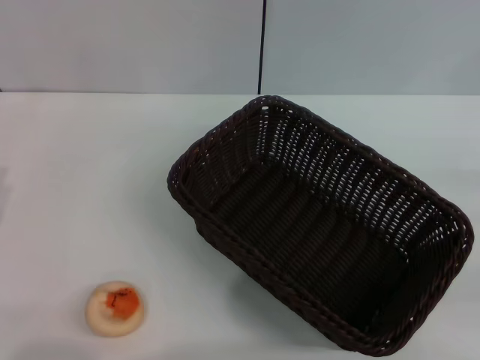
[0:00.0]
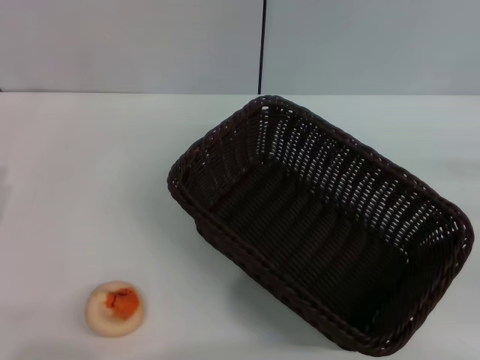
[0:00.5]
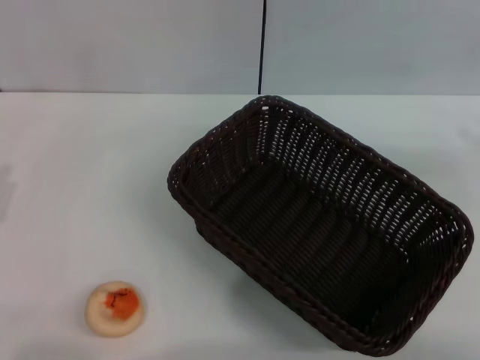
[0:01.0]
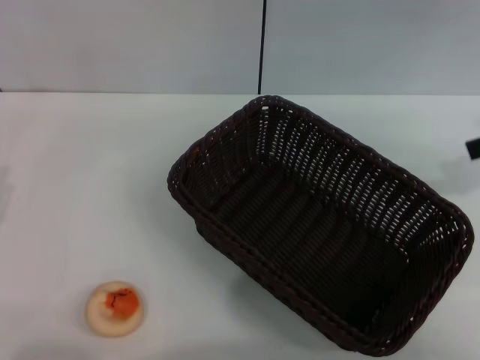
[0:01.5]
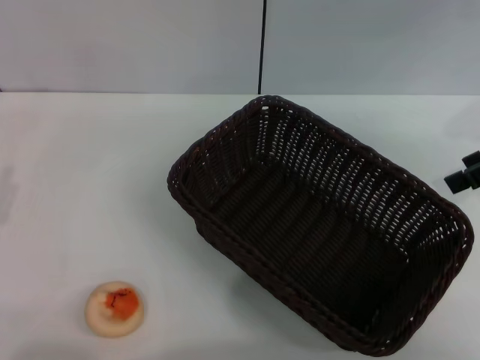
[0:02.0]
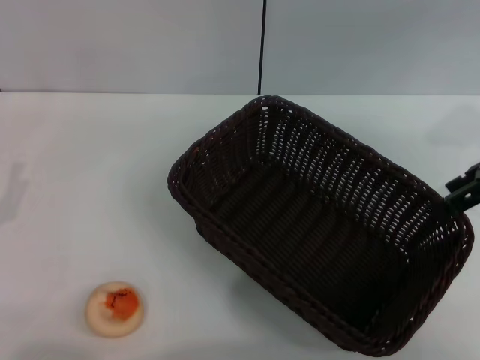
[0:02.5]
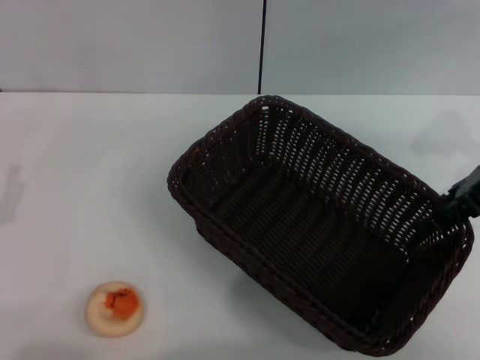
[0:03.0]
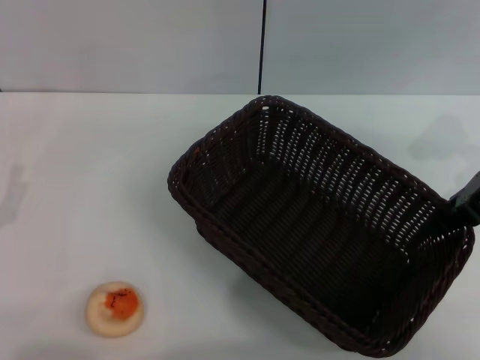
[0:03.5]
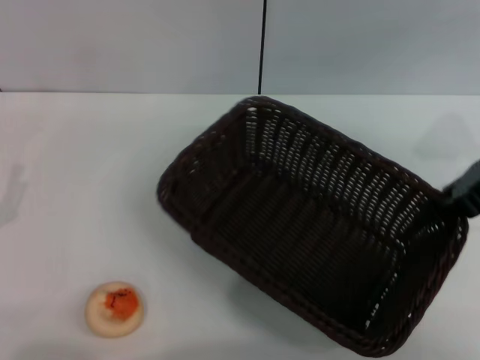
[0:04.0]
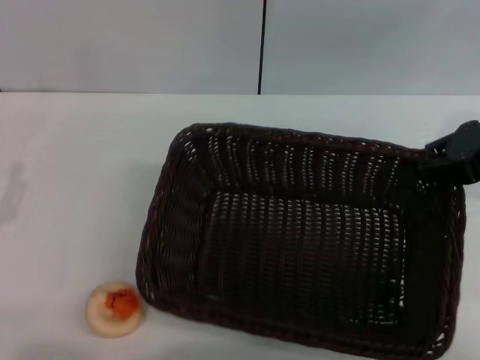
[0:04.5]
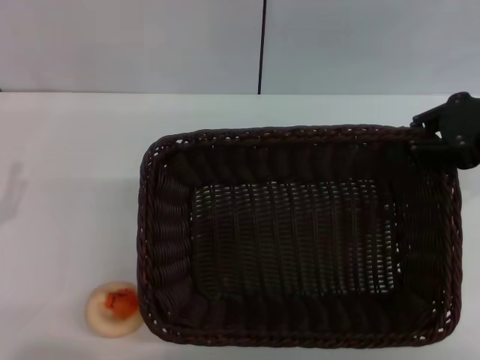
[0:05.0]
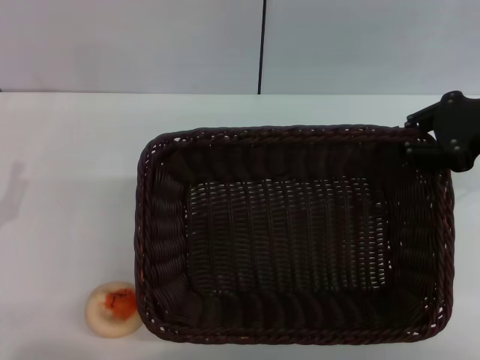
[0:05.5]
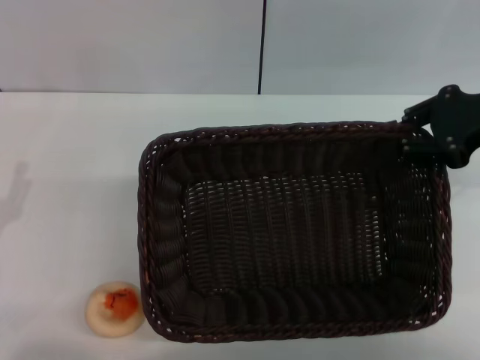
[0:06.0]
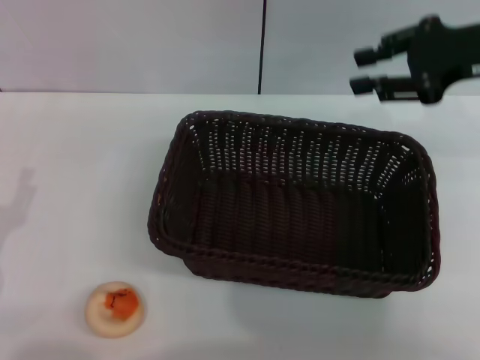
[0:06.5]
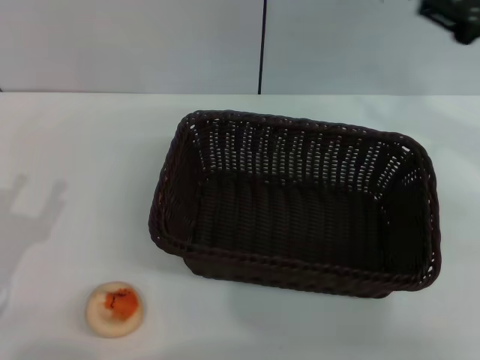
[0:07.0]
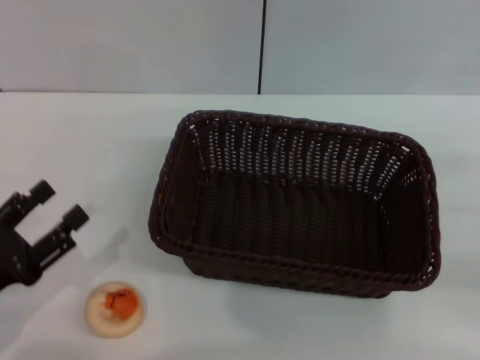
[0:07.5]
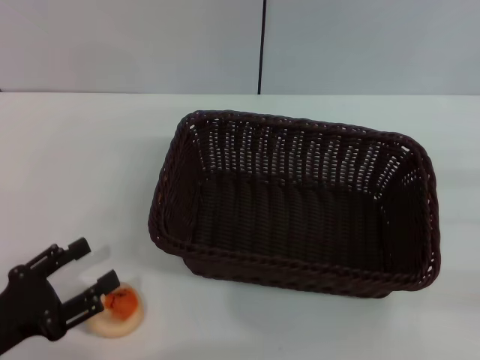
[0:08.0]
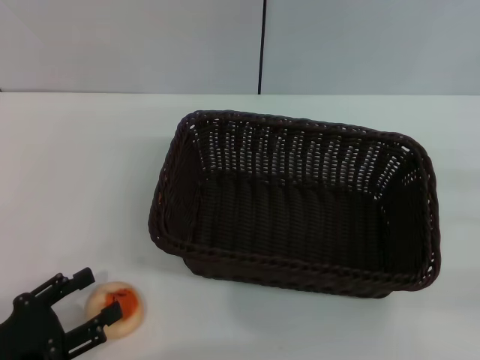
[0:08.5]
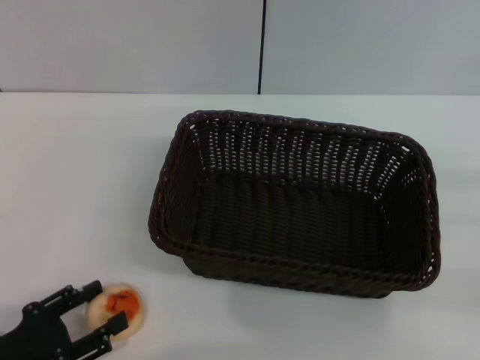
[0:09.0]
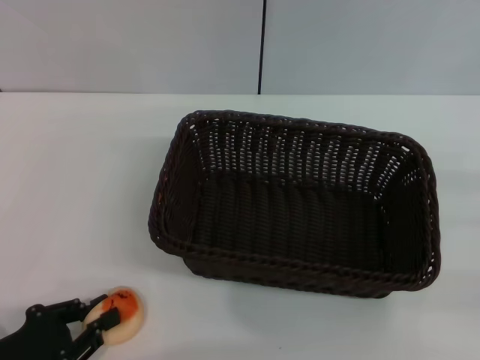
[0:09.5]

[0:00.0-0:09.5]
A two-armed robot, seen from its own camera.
Step, 0:00.0 to 0:06.0: Move the basket to the center of view with the right gripper.
0:00.0 to 0:02.0: The right gripper shifts approximately 20 cm upward, forward and to the left, and opens its fingers.
0:02.0 to 0:04.0: The right gripper changes place by approximately 5 cm, and closes.
0:05.5 to 0:07.5: The right gripper travels backward, to the right and downward by some 20 cm, and opens up.
0:07.5 to 0:09.5: The left gripper closes its fingers.

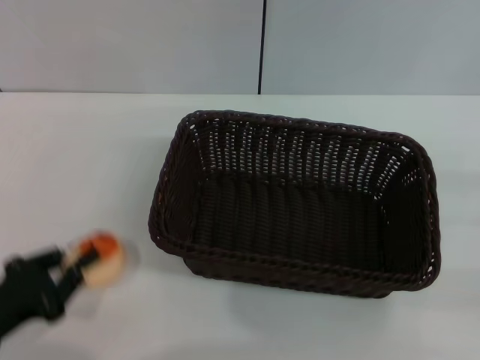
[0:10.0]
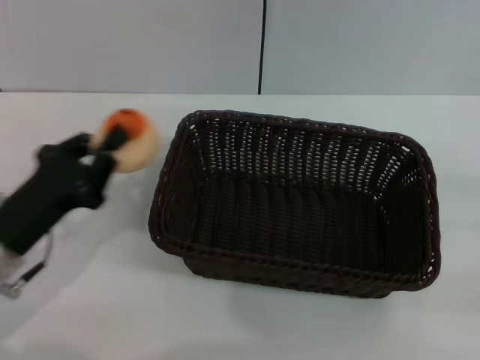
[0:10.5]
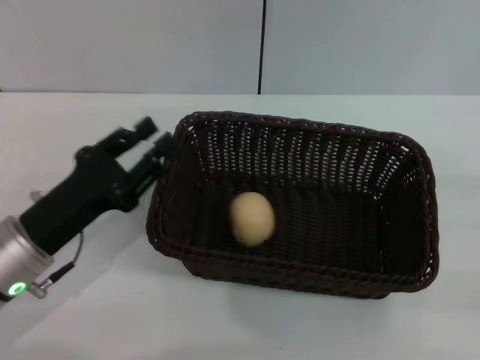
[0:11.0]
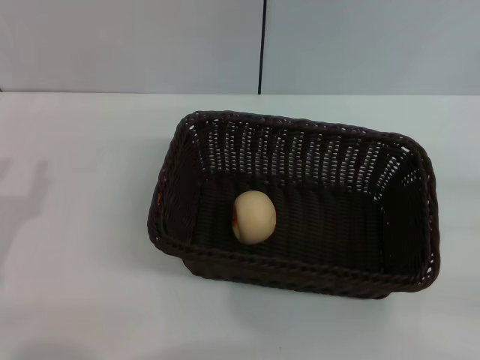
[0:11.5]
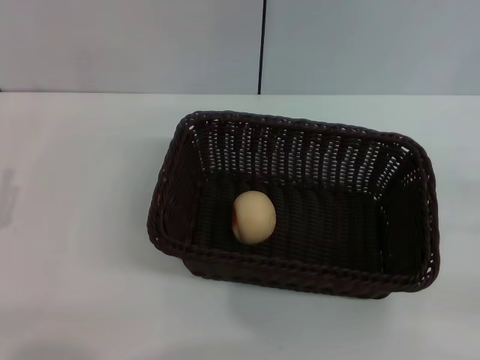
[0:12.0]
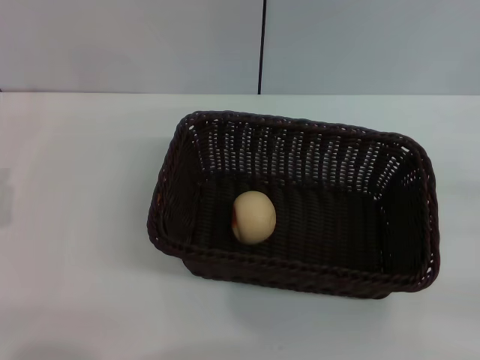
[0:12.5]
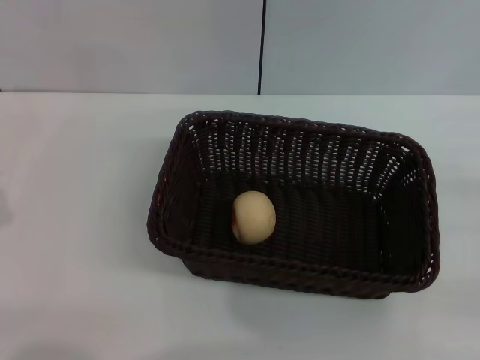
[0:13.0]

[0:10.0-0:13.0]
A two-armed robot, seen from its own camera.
0:10.0 to 0:11.5: The left gripper goes forward and returns, about 10 cm each way, and opens its fingers.
